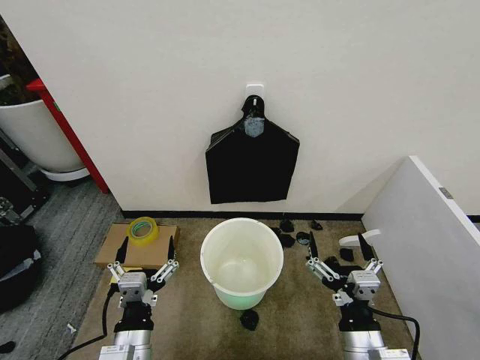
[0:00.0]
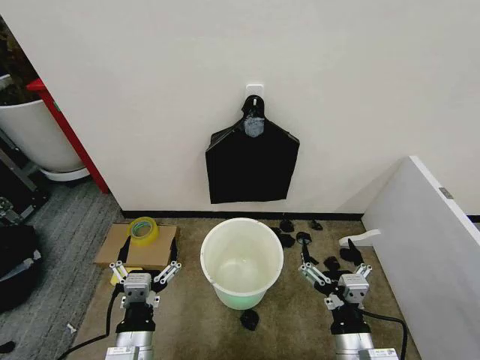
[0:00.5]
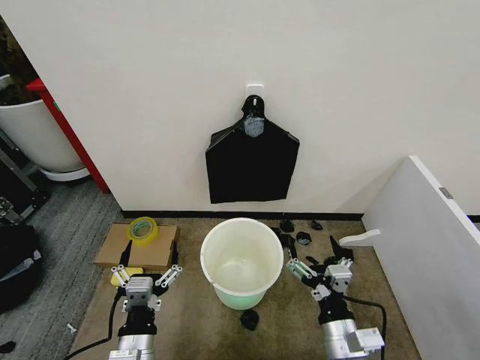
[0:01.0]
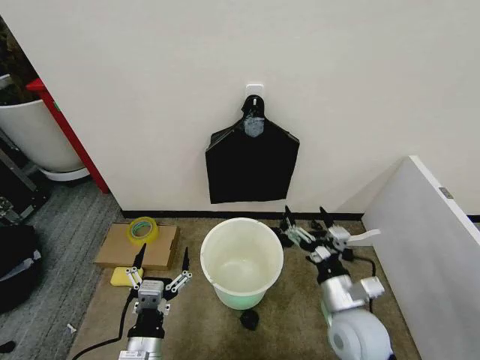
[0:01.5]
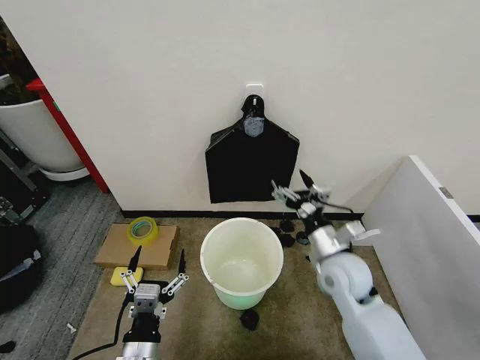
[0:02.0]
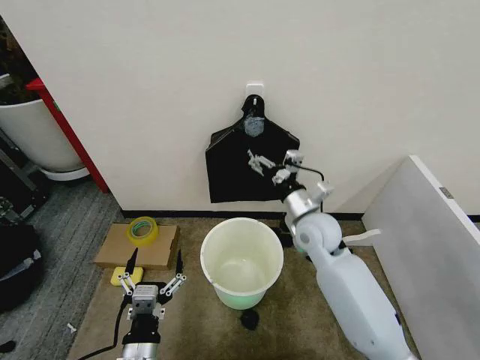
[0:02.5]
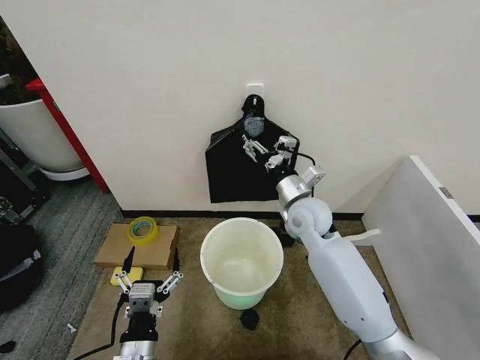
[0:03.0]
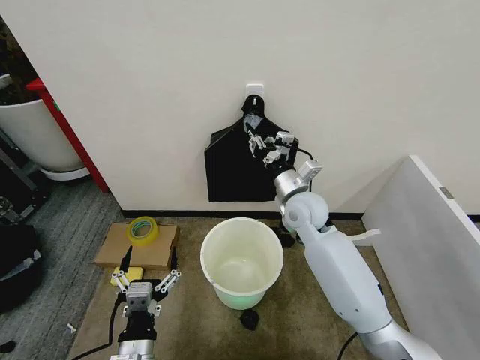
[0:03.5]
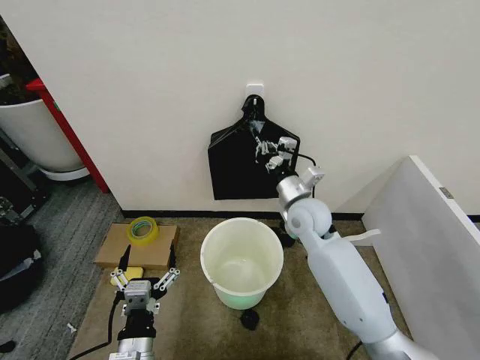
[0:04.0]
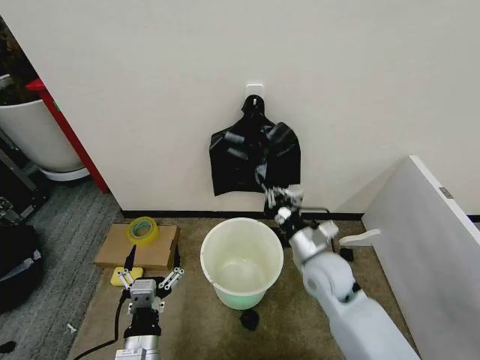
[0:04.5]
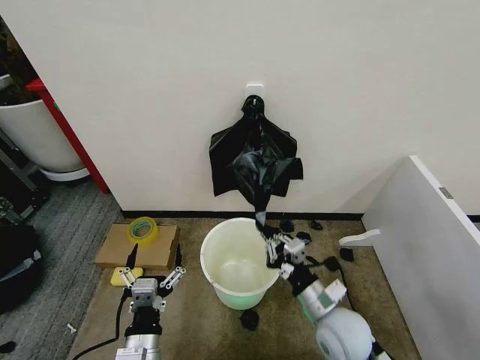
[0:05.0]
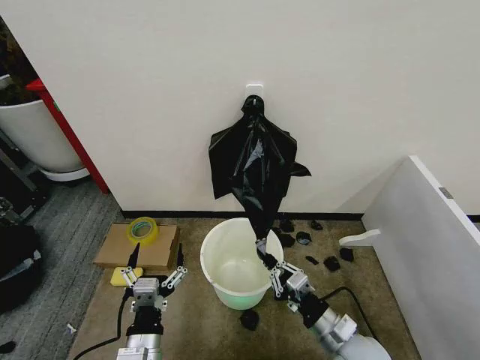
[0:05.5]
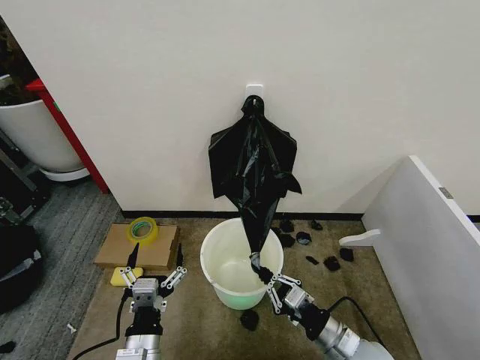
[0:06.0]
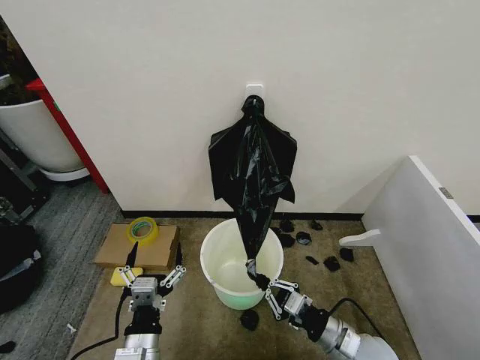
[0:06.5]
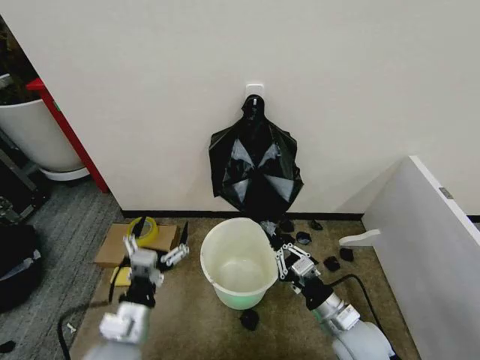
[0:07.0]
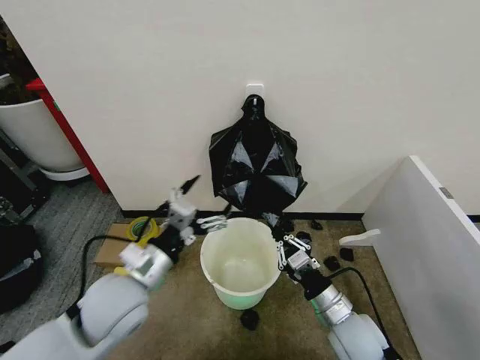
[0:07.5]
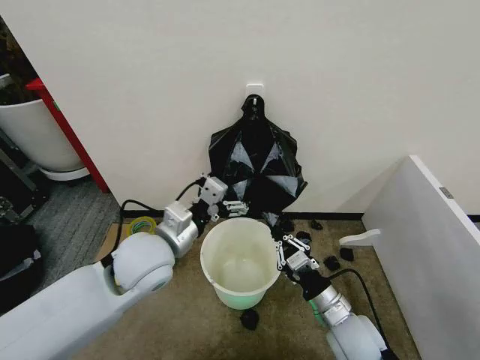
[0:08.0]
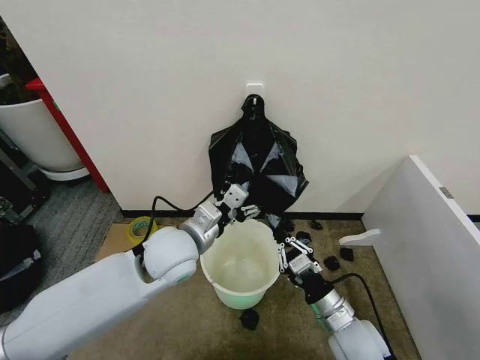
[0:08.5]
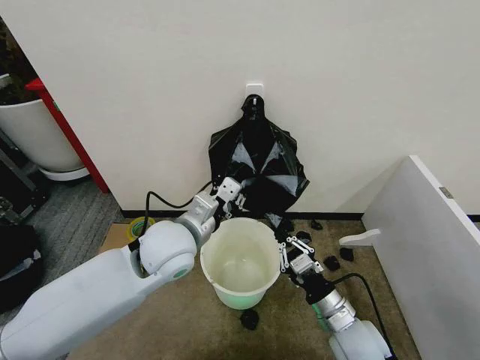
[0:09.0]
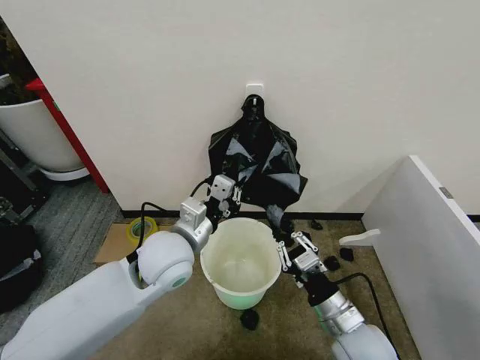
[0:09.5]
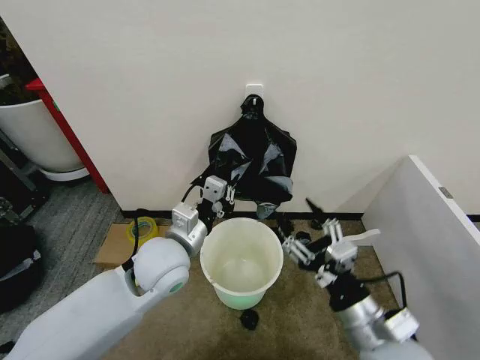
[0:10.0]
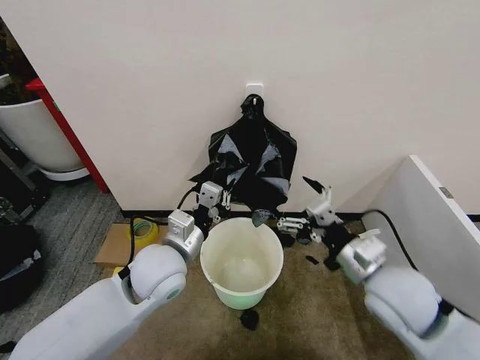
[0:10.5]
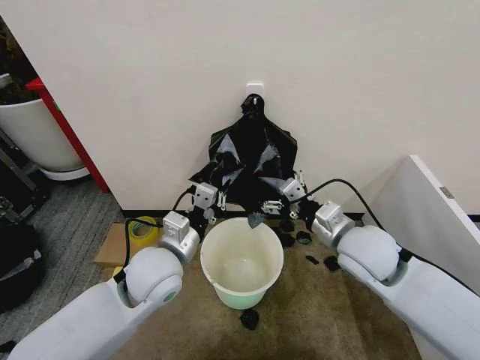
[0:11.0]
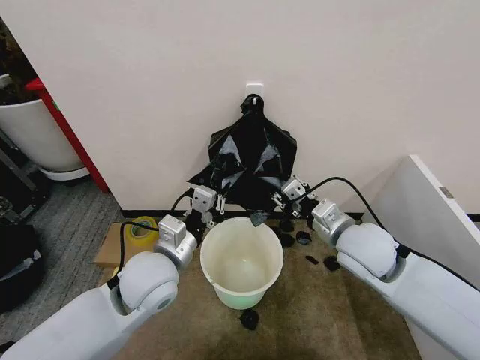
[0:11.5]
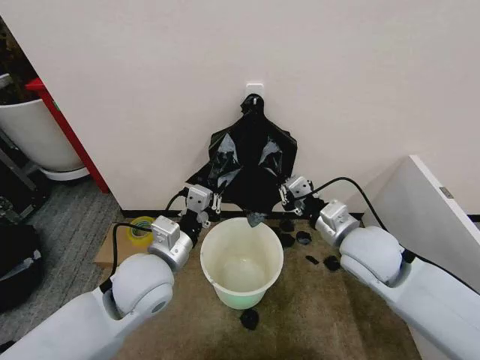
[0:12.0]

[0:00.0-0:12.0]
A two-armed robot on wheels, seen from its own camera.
Task of the whole recording: Place the garbage bag over the trash bin.
0:02.0 to 0:04.0: The right gripper moves forward and to the left, about 15 cm, and closes its fingers.
0:04.0 to 0:06.0: The right gripper moves backward and downward, approximately 30 cm.
0:06.0 to 0:08.0: The left gripper moves forward and upward, approximately 25 cm, while the right gripper ends up about 5 cm from where it was.
0:08.0 to 0:10.0: The left gripper closes its fingers, while the right gripper heads upward and backward, covering some 10 cm, and opens its fingers.
0:10.0 to 0:12.0: The right gripper goes some 15 cm forward, and closes its fingers.

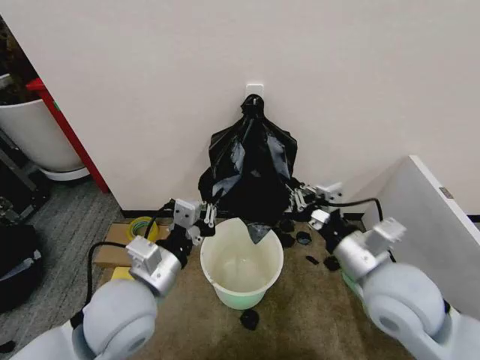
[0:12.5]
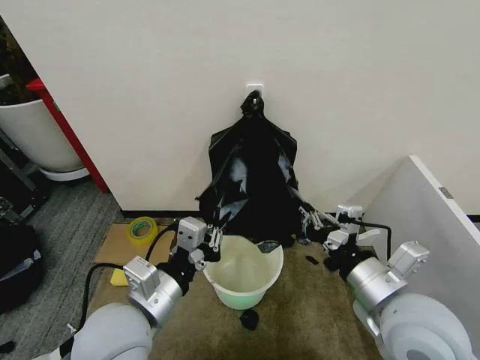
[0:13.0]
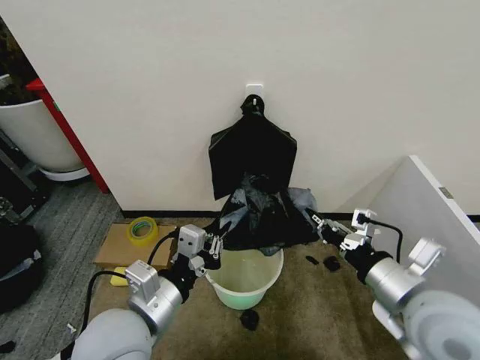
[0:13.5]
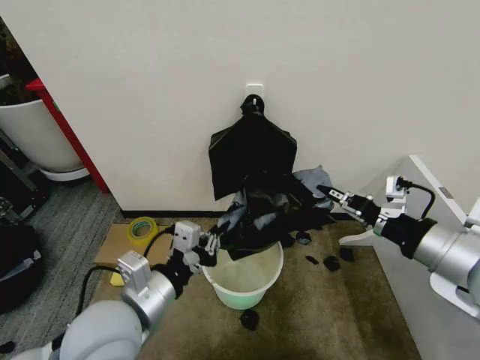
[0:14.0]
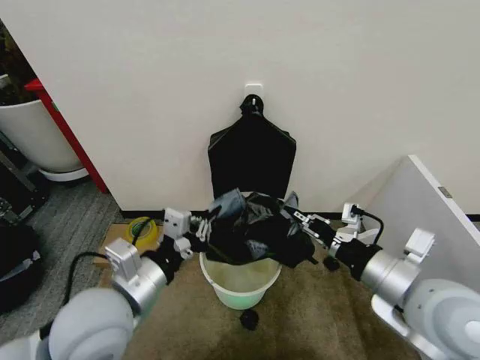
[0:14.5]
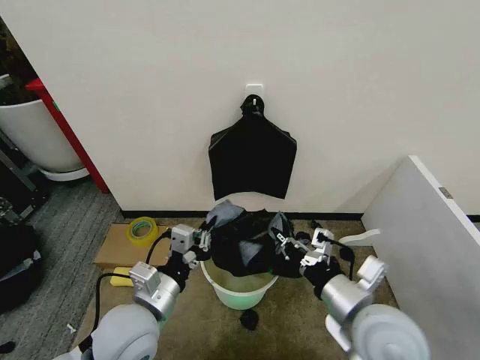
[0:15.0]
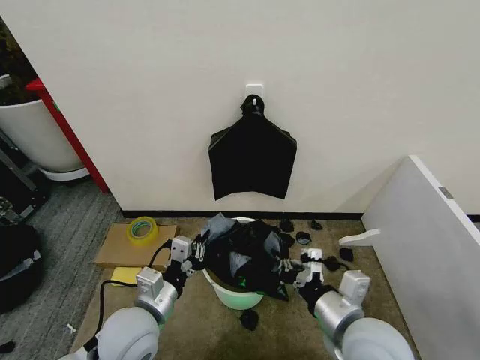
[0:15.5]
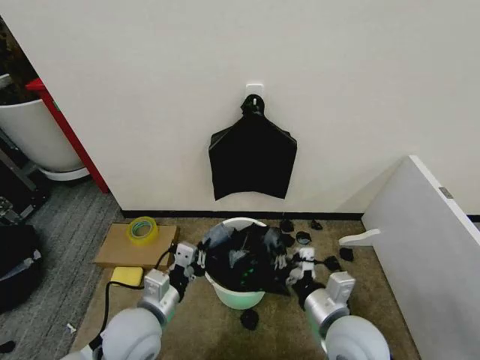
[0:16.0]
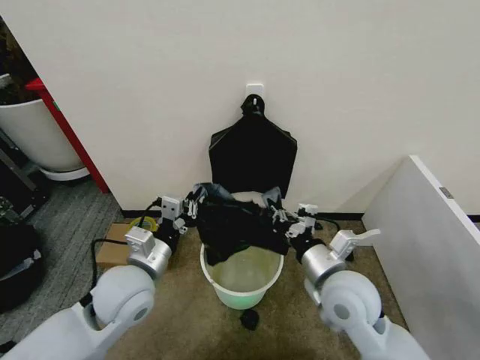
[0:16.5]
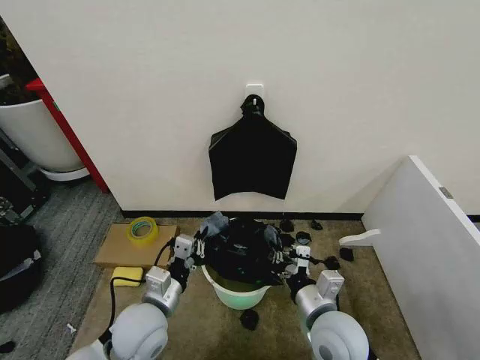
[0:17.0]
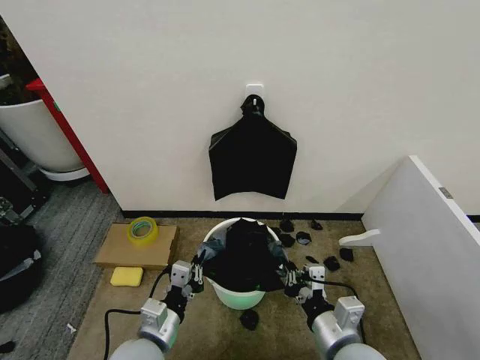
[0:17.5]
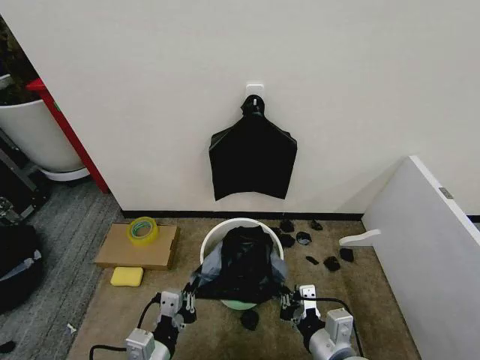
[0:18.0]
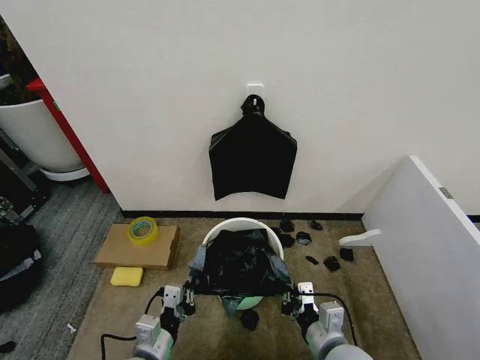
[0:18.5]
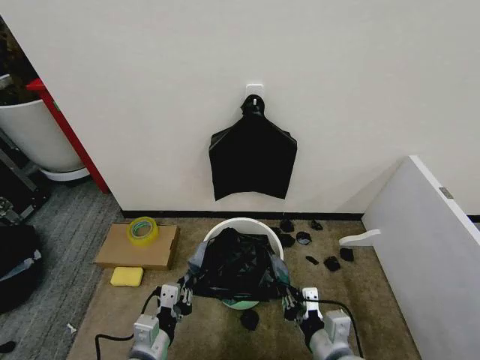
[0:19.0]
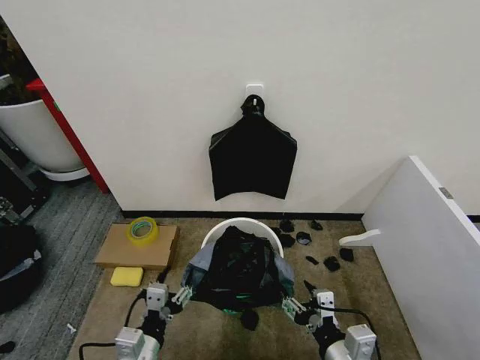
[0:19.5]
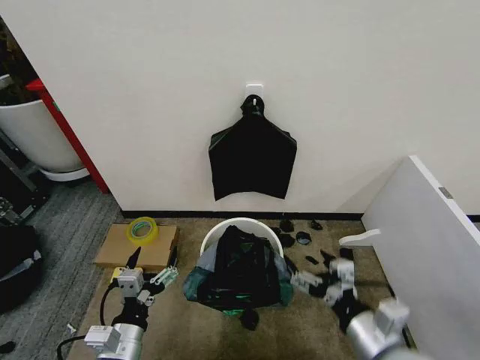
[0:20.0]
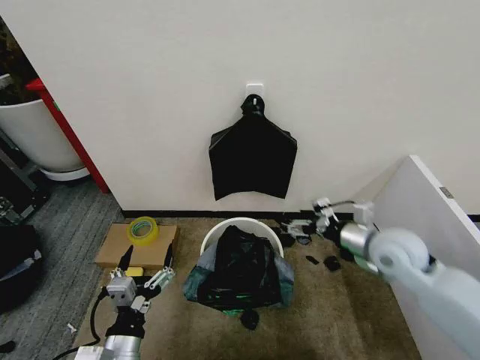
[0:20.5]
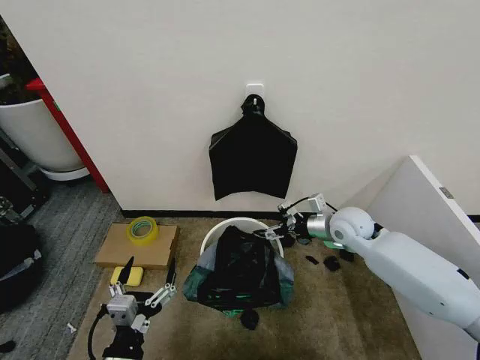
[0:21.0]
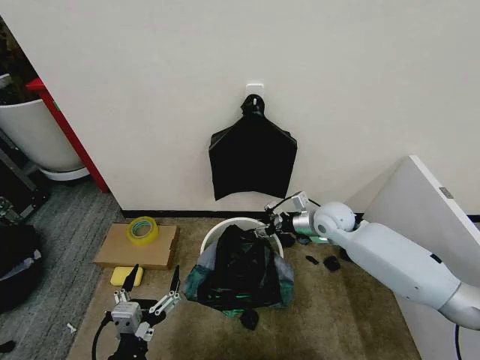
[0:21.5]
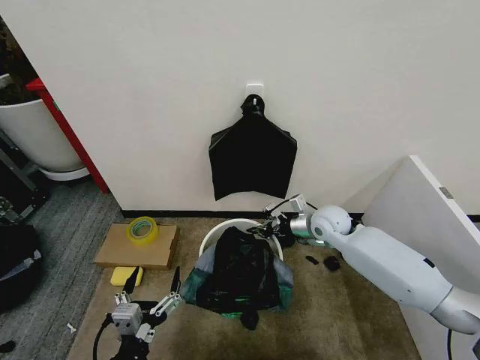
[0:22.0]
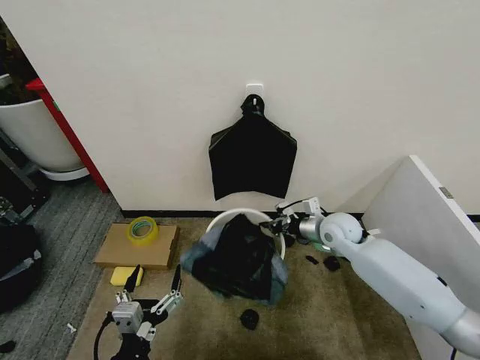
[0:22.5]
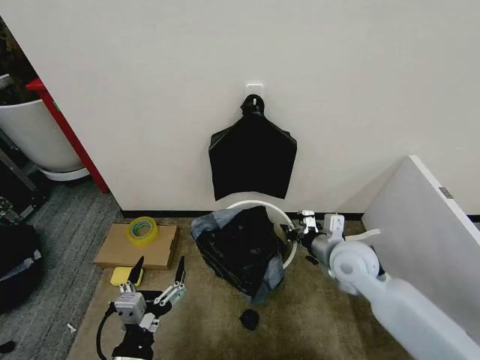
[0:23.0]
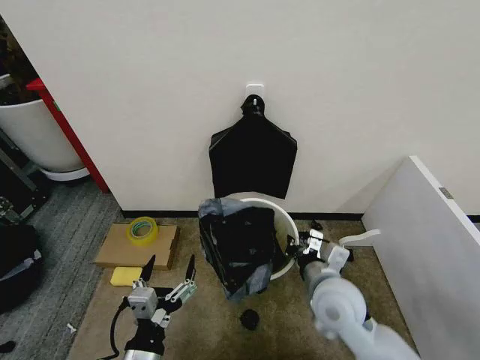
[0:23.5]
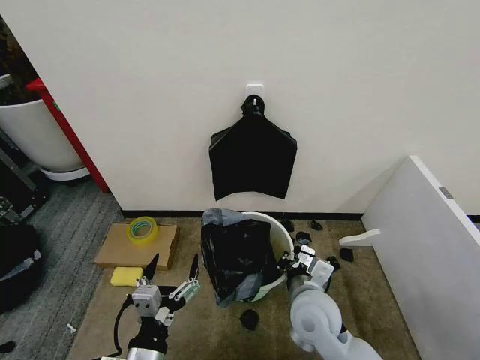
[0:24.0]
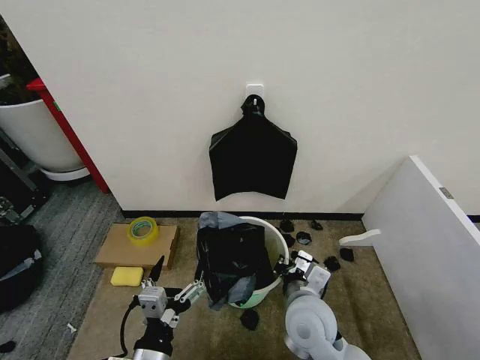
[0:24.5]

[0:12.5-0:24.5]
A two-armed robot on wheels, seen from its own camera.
Task of the whole recording: Place the garbage bag over the trash bin.
0:14.5 to 0:16.5: The left gripper shifts roughly 10 cm forward and downward, while the right gripper heads downward, to the left and forward, covering about 15 cm.
0:16.5 to 0:18.5: Both grippers travel together downward and backward, roughly 15 cm.
0:18.5 to 0:20.5: The right gripper heads forward, upward and to the right, covering approximately 25 cm, and opens up; the left gripper shifts by approximately 5 cm, and opens its fingers.
0:20.5 to 0:22.5: The right gripper goes roughly 15 cm forward, downward and to the left, and closes its fingers.
0:22.5 to 0:24.5: The right gripper travels backward and to the left by approximately 25 cm.

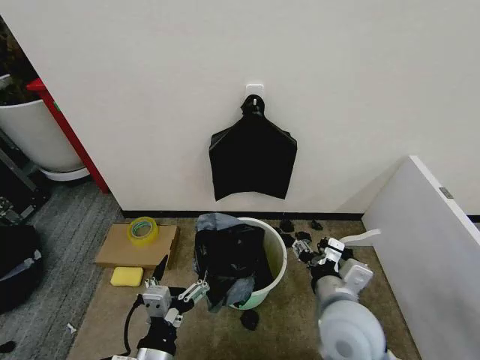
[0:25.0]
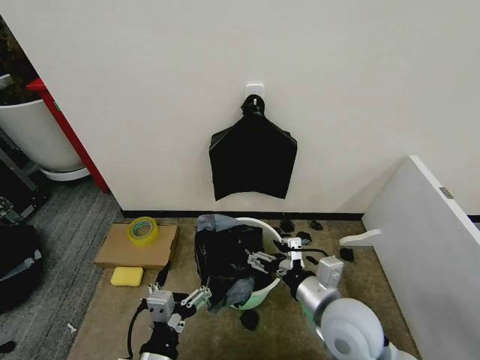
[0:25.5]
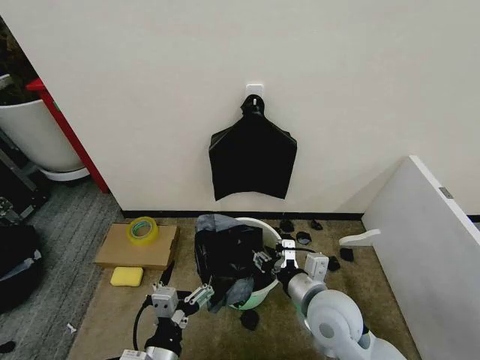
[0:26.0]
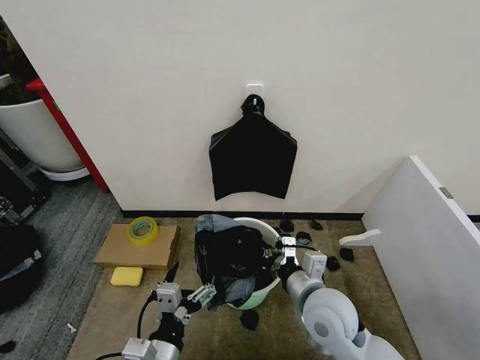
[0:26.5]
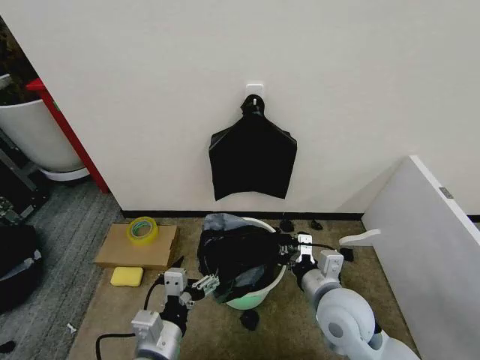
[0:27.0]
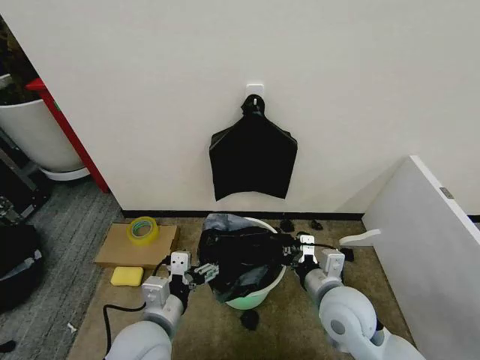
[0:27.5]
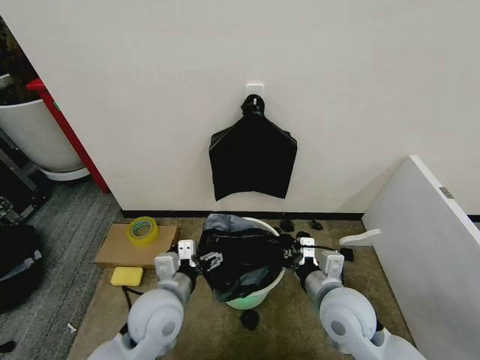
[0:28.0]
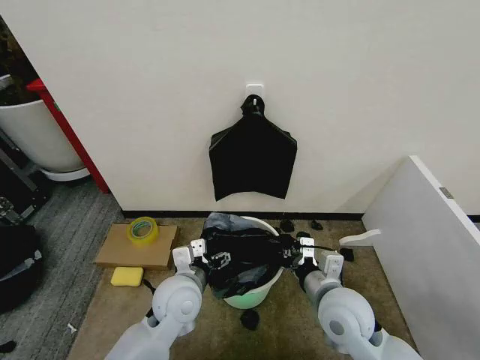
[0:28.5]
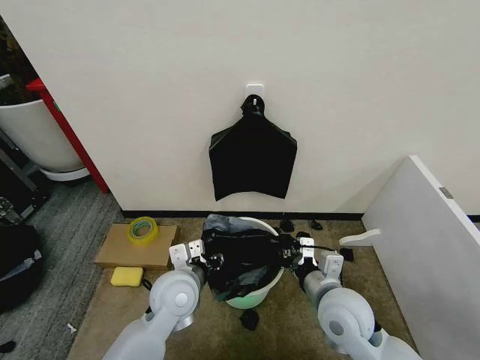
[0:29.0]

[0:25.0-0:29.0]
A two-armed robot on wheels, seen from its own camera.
Task of the whole recording: Place the garbage bag over the trash bin.
0:25.0 to 0:27.0: The right gripper closes up.
0:27.0 to 0:29.0: The left gripper moves forward, some 15 cm, and closes its fingers.
